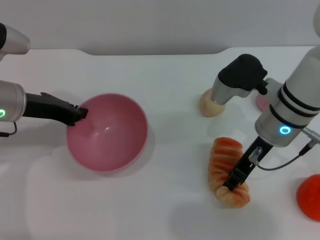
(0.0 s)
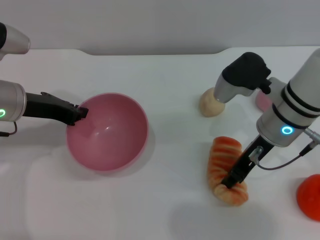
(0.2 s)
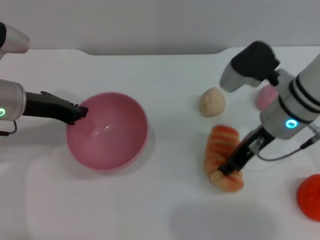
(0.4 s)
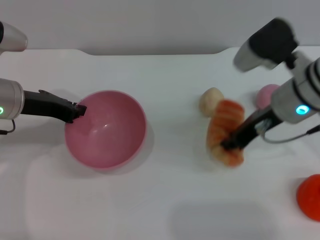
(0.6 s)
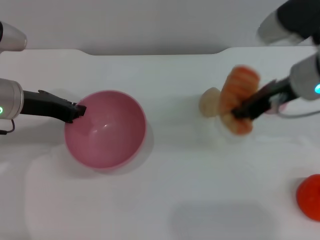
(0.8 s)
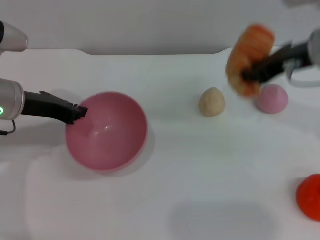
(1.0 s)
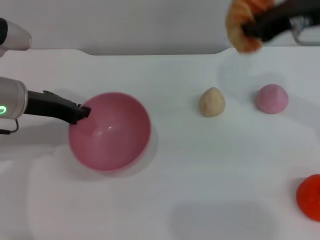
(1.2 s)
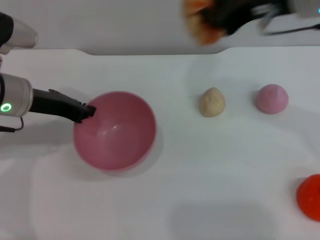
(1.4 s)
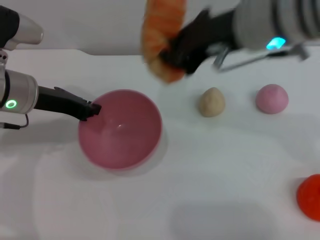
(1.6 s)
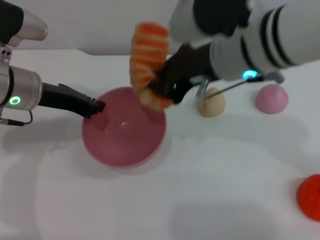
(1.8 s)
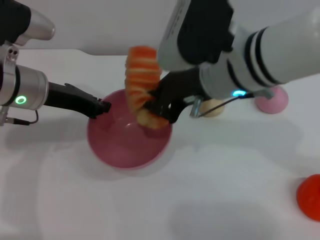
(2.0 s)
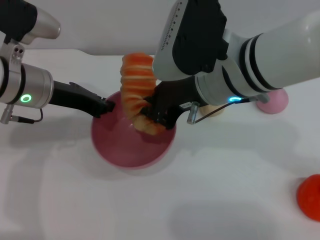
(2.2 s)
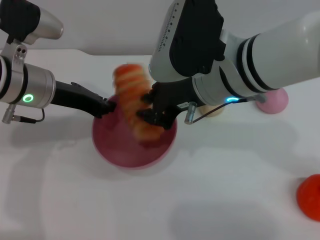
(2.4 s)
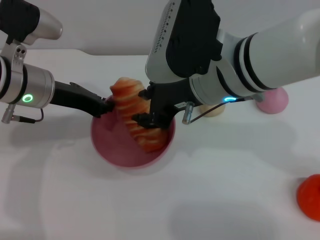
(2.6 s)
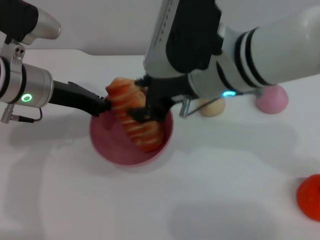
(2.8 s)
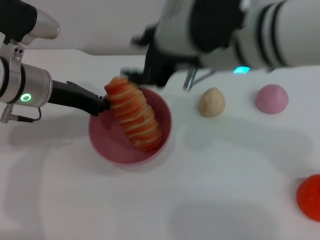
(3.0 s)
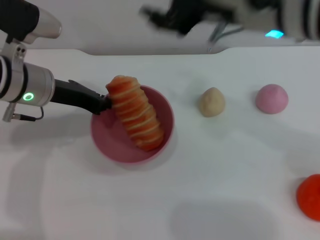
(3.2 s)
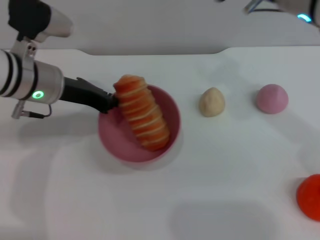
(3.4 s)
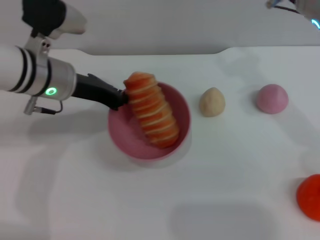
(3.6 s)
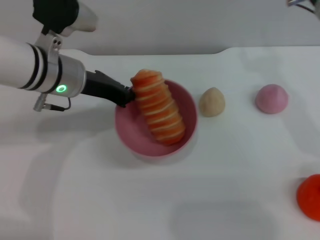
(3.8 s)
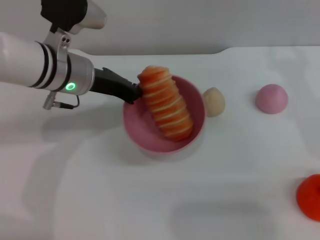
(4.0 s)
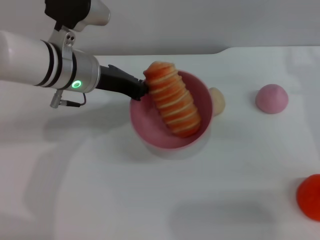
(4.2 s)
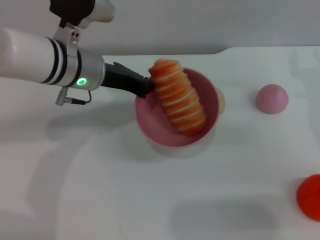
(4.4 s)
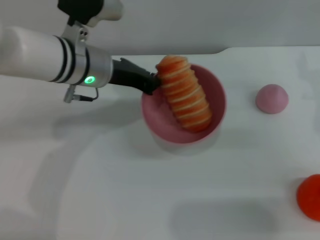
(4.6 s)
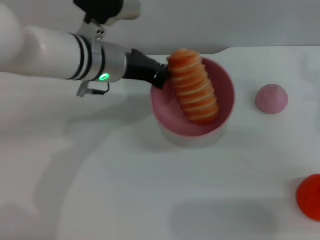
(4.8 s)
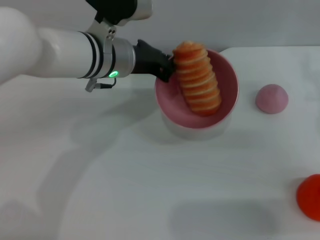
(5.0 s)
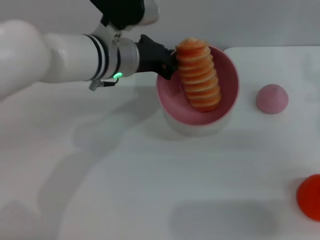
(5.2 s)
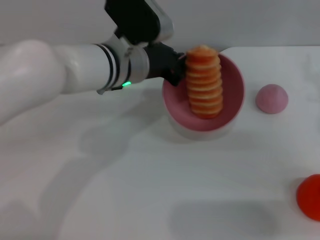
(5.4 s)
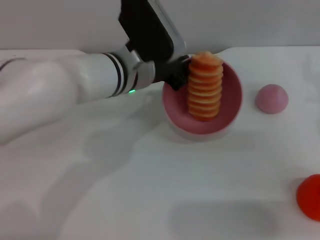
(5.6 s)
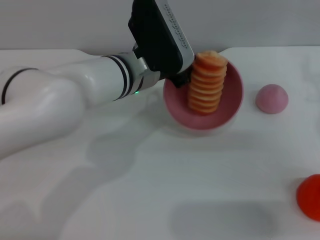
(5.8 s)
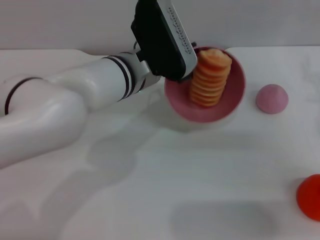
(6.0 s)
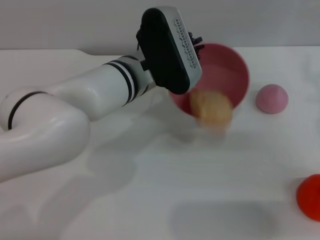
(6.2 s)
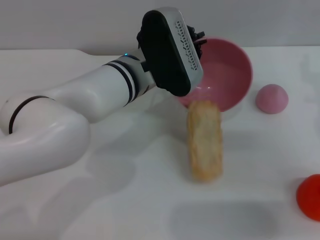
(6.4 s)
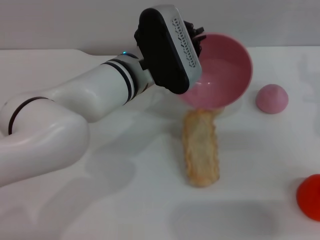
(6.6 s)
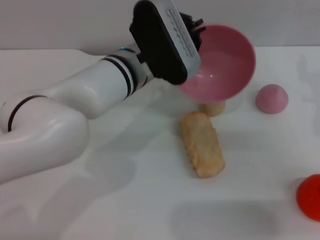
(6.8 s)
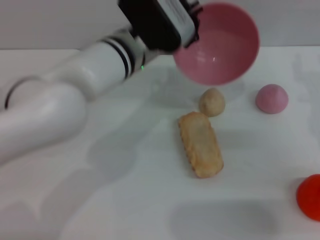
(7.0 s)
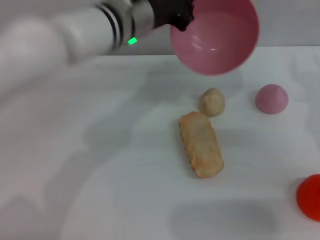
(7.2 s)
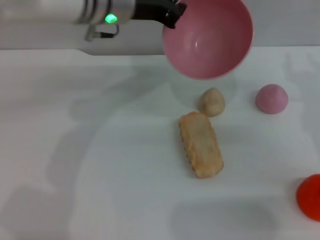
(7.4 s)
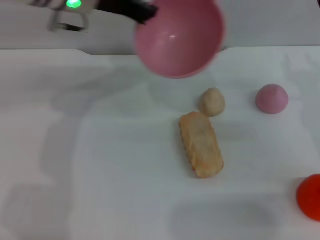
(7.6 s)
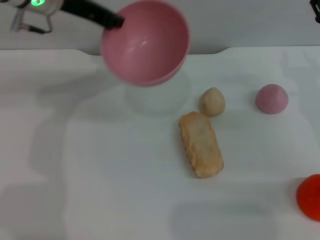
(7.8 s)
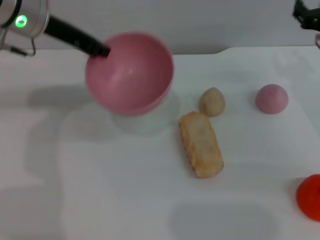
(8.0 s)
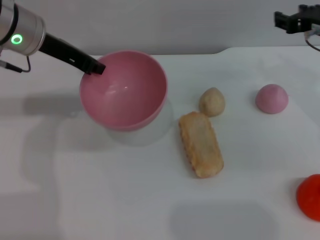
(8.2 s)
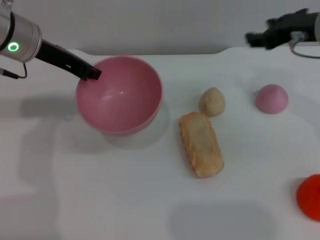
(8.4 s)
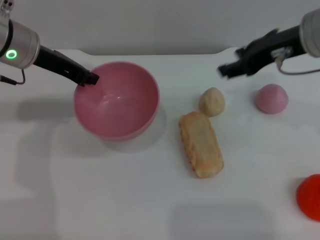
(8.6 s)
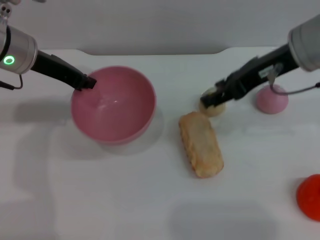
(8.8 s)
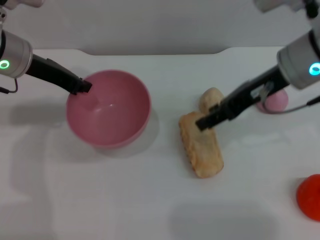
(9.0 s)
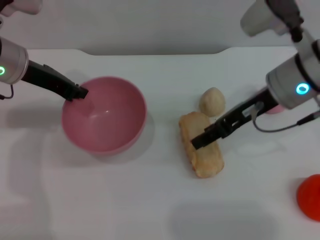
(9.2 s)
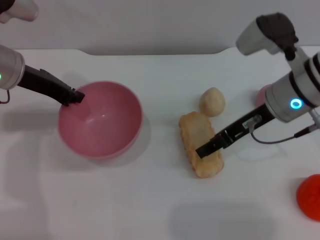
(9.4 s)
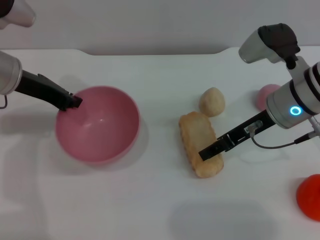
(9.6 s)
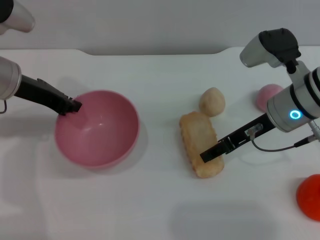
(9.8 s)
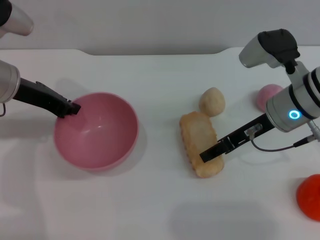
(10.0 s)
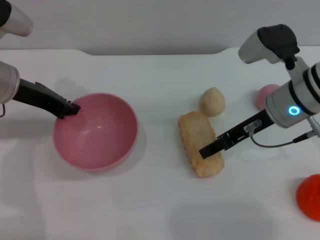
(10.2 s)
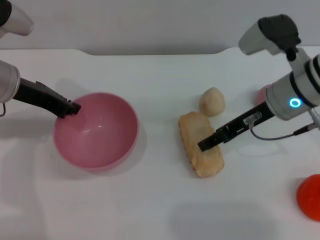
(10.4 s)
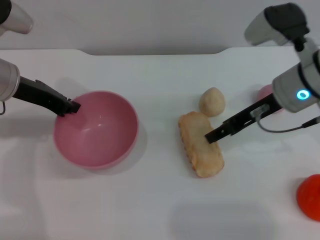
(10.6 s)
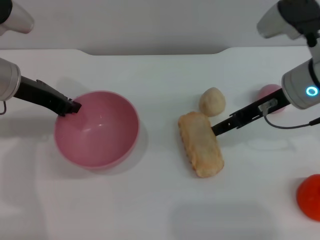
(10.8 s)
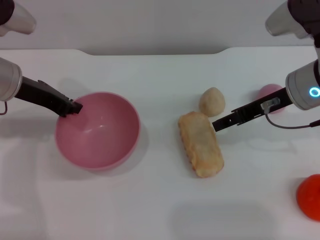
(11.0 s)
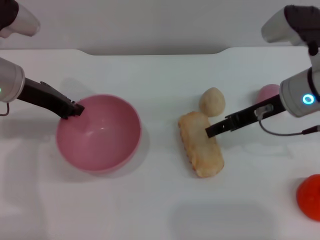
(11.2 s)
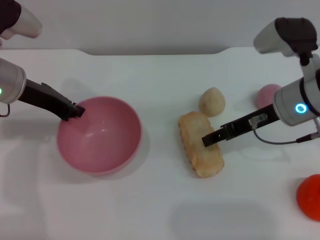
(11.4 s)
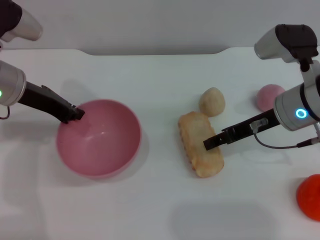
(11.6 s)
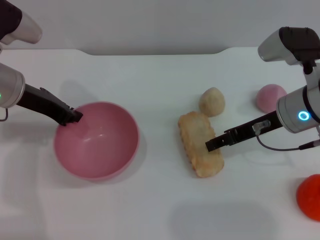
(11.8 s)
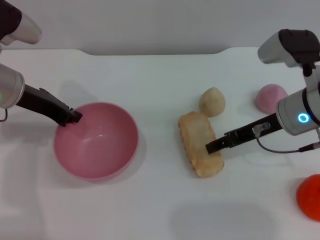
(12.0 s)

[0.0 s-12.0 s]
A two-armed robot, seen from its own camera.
Task of the whole recording: put the bread into the pink bowl and pour it out repeatedly.
Step, 1.0 to 2.8 s: Place the bread into the bowl.
Step, 3.2 to 7.0 s: Pour the bread out of the bowl.
0.0 to 1.6 s: The right gripper shifts roughly 15 cm upward.
1.6 to 3.0 s: The right gripper opens.
3.0 to 4.4 s: The left gripper travels to the right by about 5 cm. Meanwhile the right gripper heads to the right and downward, covering roughly 20 cm.
4.4 to 6.0 s: The left gripper moves to the right, approximately 10 cm.
6.0 to 7.6 s: The left gripper is displaced upward, to the left and forward by about 15 cm.
7.6 to 9.0 s: The right gripper is displaced to the left and upward by roughly 10 cm. Meanwhile the left gripper moves to the left, roughly 10 cm.
9.0 to 10.4 s: The right gripper goes roughly 5 cm downward.
10.4 to 12.0 s: The grippers move only a little.

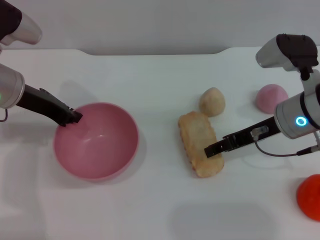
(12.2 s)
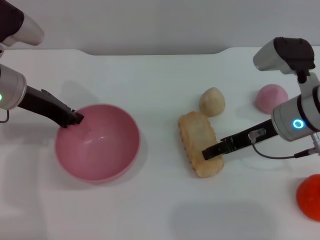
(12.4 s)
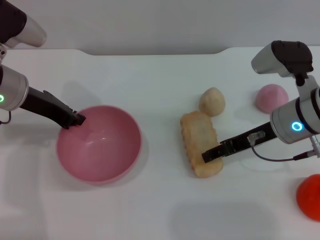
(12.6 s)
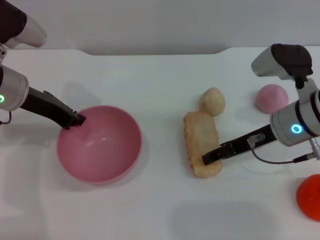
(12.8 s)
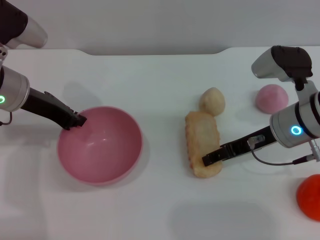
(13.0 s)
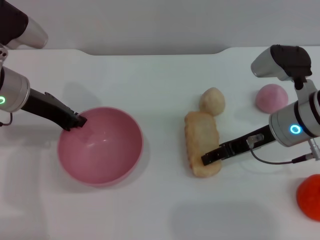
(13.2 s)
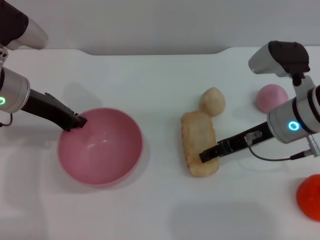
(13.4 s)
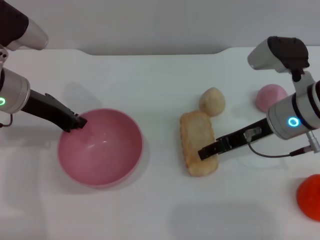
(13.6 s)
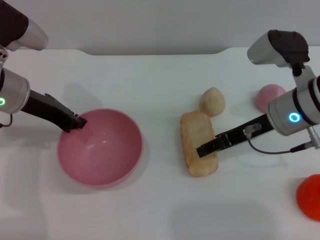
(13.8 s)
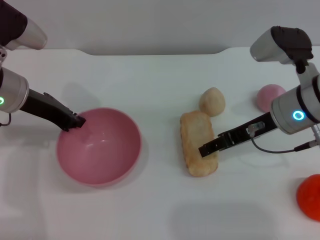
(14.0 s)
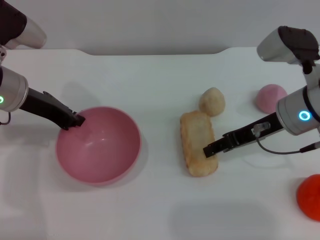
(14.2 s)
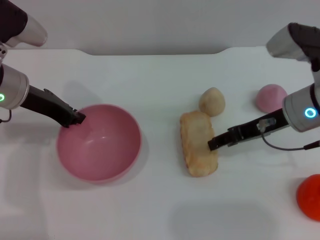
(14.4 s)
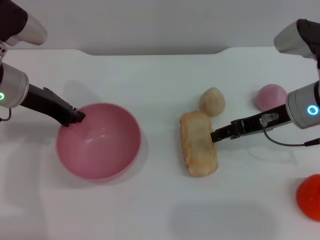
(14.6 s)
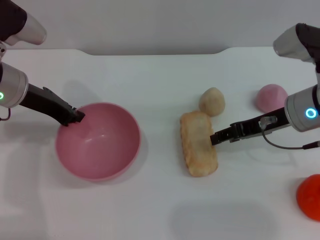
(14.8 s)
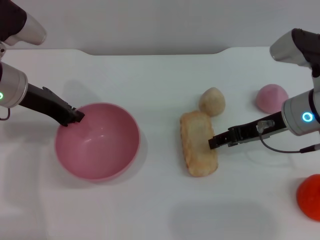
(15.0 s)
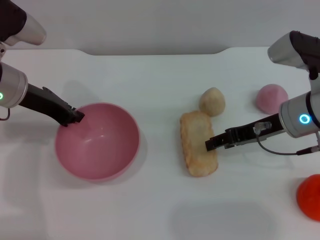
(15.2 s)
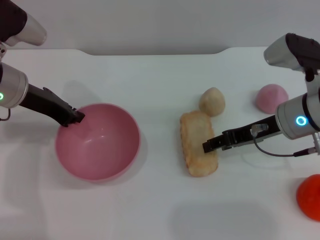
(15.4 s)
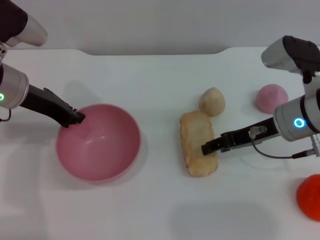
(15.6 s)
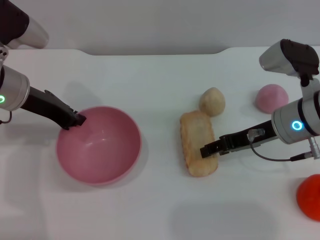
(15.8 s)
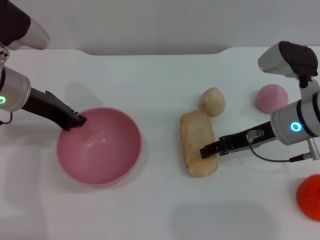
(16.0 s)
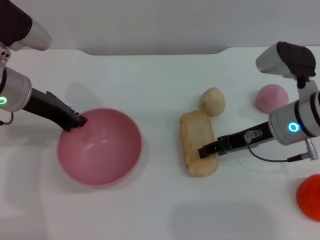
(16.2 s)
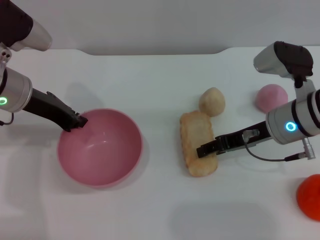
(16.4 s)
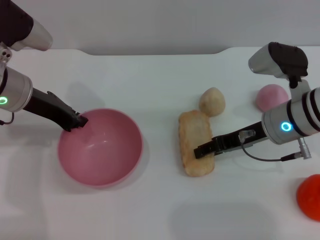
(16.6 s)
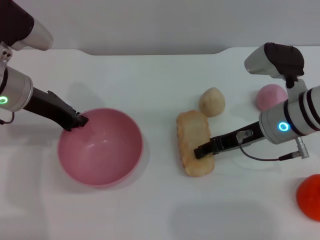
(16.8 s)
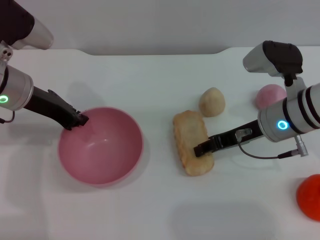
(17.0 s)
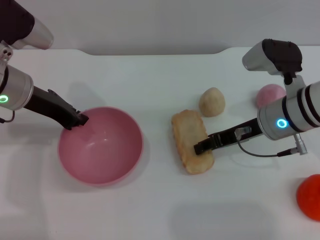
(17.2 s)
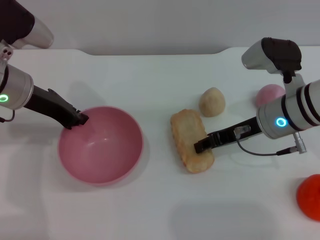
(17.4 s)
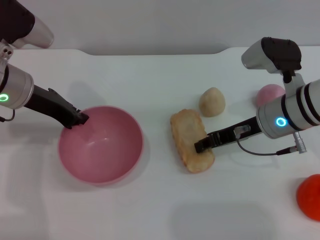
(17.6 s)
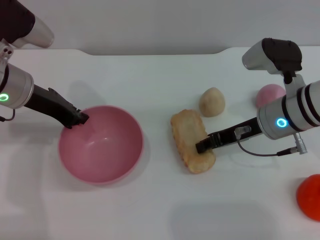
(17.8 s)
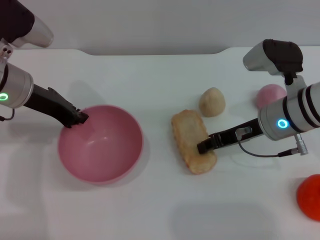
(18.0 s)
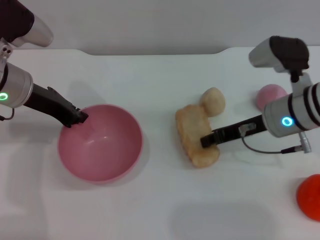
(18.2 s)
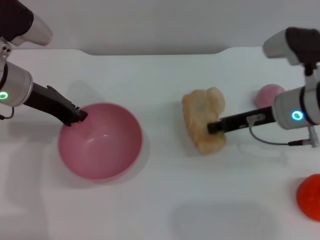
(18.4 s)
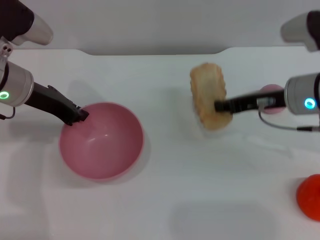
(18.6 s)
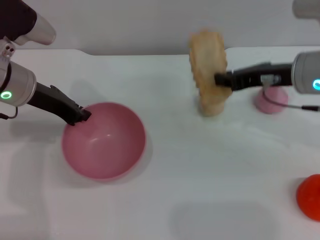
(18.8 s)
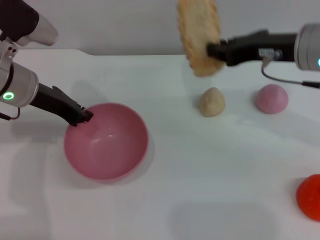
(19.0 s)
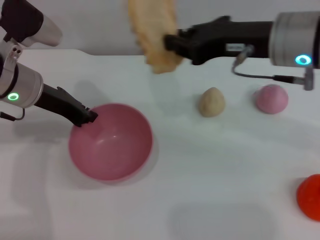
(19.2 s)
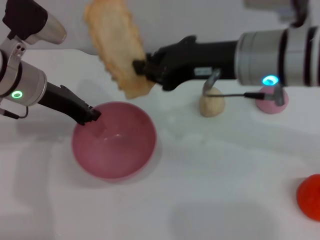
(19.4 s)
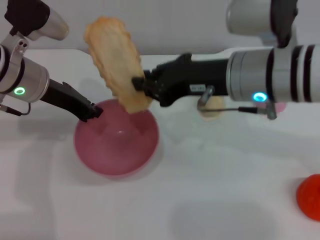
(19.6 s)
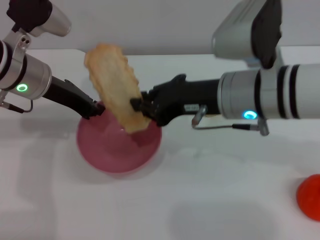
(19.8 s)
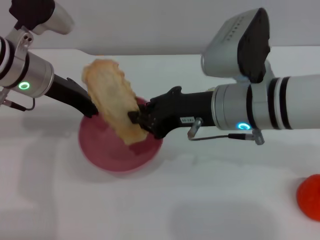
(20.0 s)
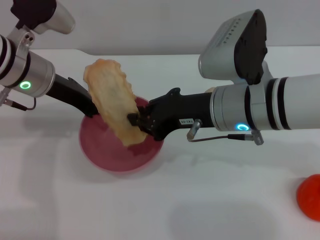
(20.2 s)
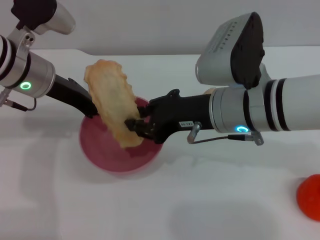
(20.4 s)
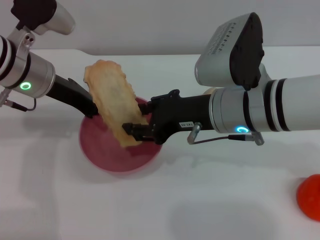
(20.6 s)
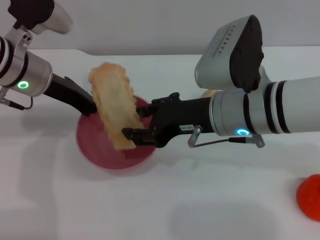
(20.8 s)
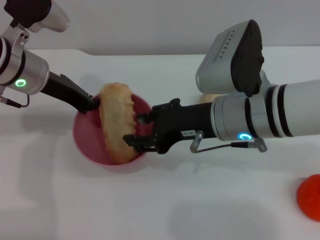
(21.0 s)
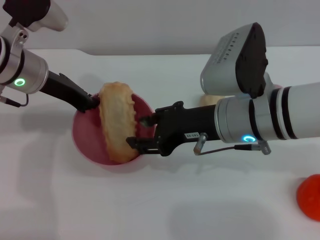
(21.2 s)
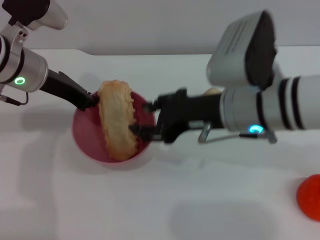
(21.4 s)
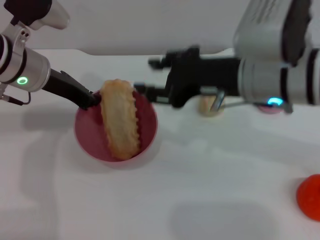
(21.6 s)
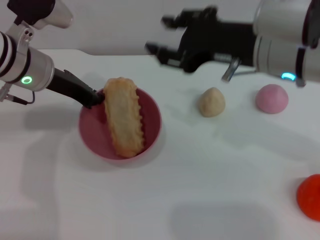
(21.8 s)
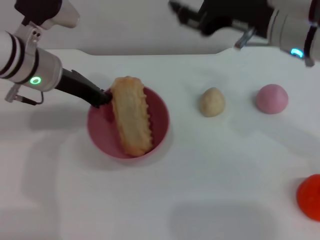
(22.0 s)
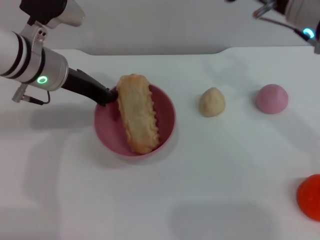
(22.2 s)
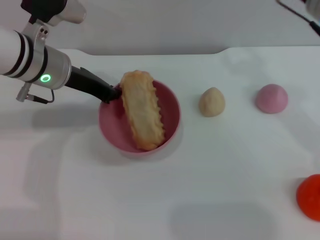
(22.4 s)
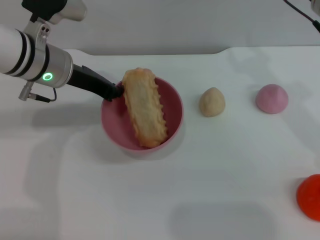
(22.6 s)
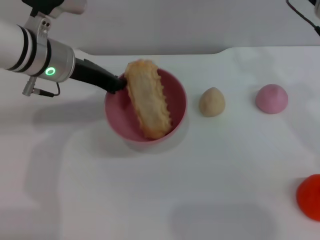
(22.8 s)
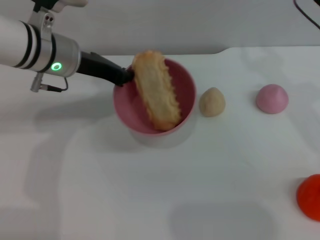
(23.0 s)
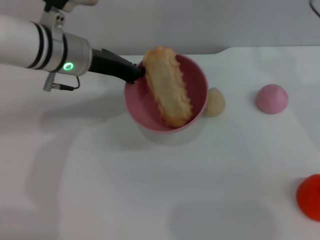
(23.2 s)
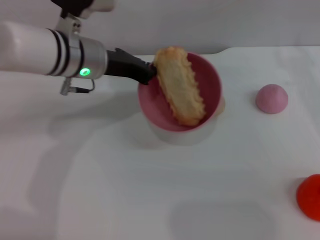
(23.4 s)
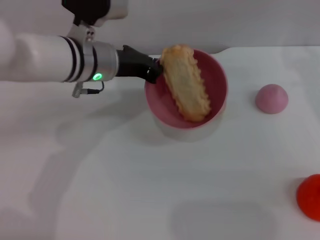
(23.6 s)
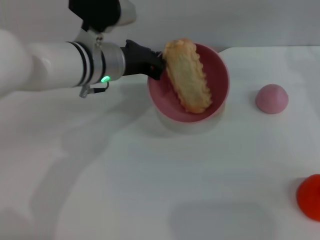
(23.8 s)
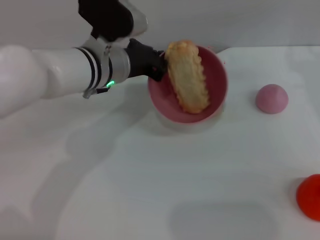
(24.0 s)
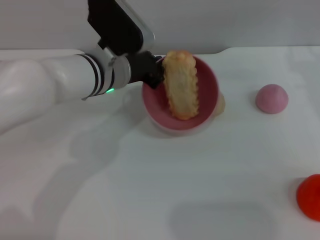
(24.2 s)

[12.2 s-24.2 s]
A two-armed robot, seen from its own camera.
Task of the whole recording: put the bread into the pink bowl and pour it out repeatedly.
Step, 12.2 to 18.6 s: Pick up the bread with the right gripper.
Step, 18.8 to 21.4 s: Place the bread into the bowl.
12.2 to 16.6 s: The grippers move only a little.
16.6 to 18.2 s: The right gripper closes its fingers.
18.2 to 19.8 s: The right gripper shifts roughly 10 cm to the left and upward.
19.8 to 21.2 s: The right gripper opens its fingers.
21.2 to 22.6 s: The right gripper shifts about 15 cm to the right, upward and forward.
22.6 to 24.2 s: The two grippers go some 10 cm to the right.
